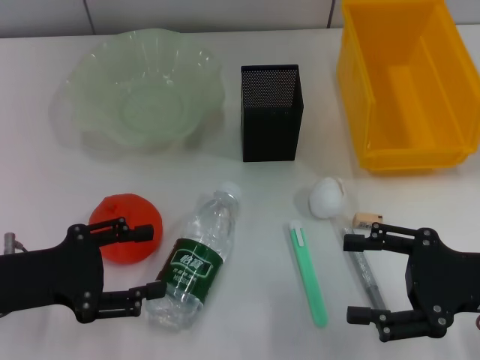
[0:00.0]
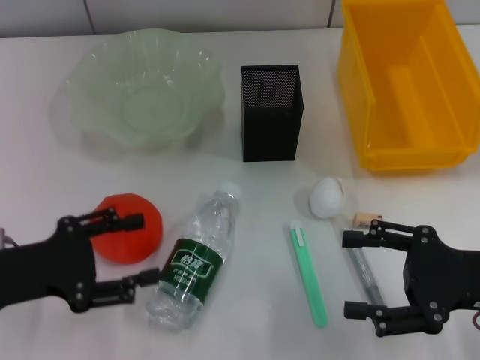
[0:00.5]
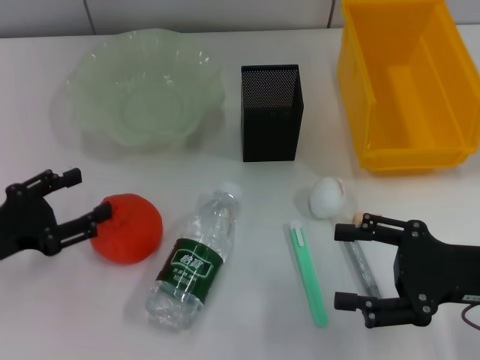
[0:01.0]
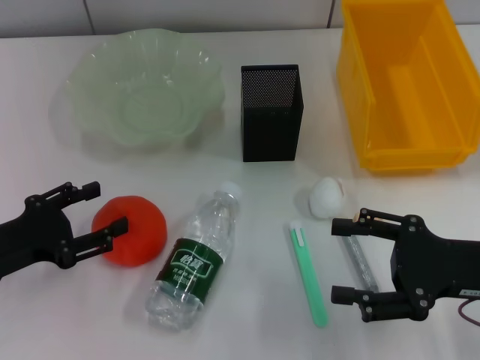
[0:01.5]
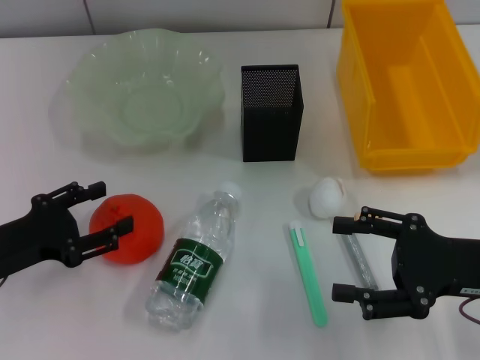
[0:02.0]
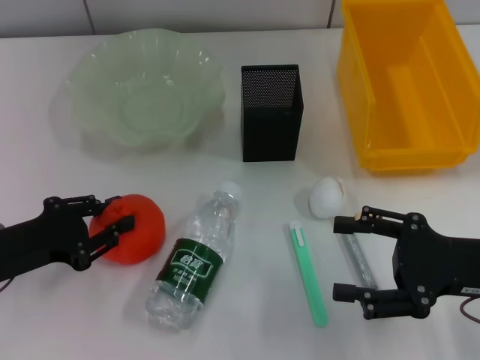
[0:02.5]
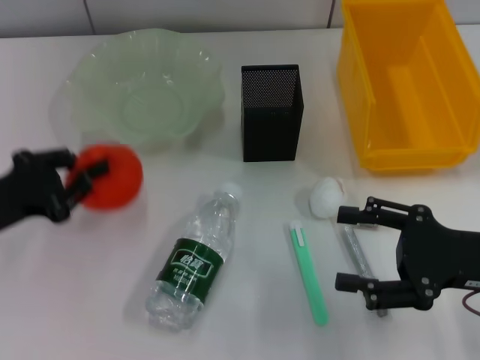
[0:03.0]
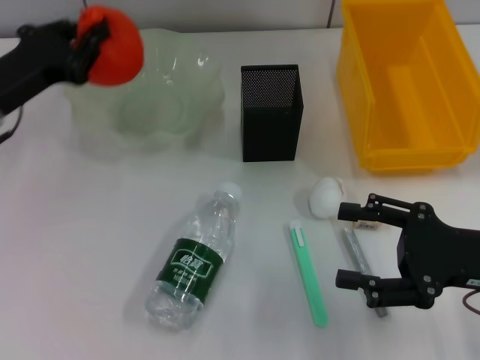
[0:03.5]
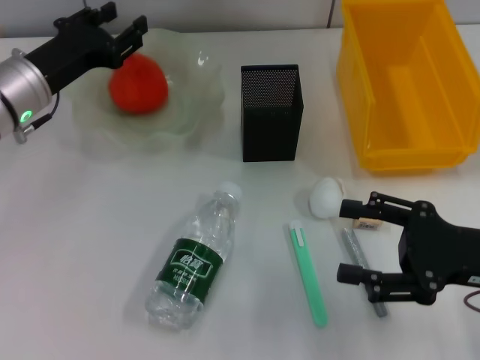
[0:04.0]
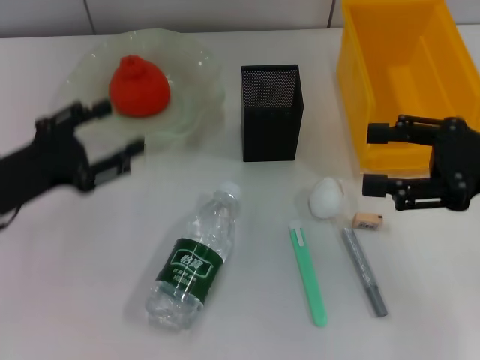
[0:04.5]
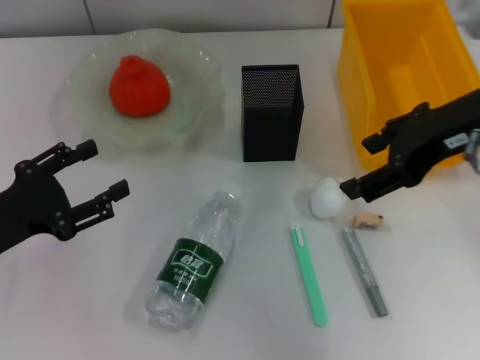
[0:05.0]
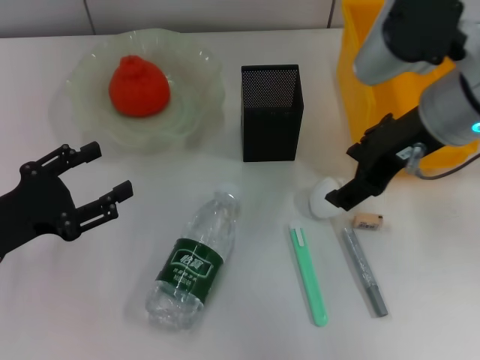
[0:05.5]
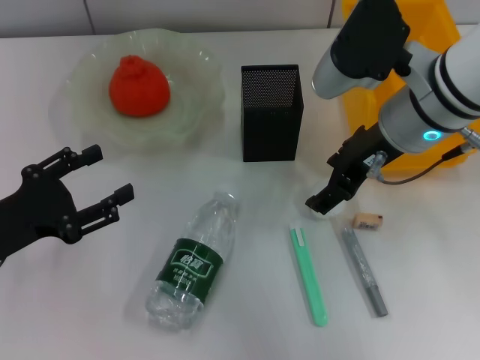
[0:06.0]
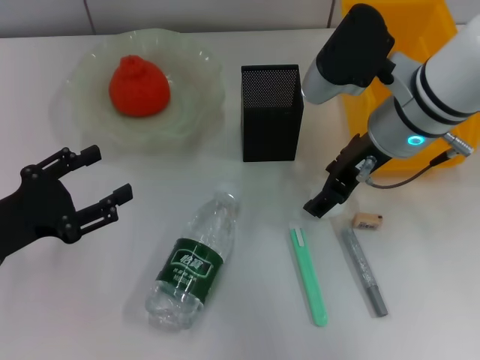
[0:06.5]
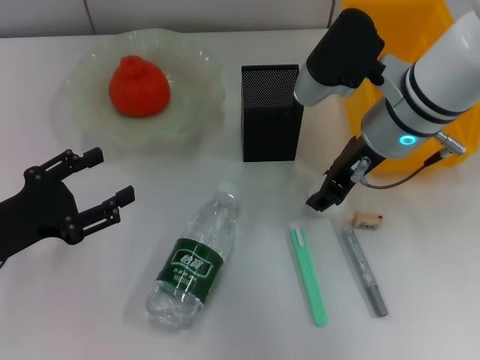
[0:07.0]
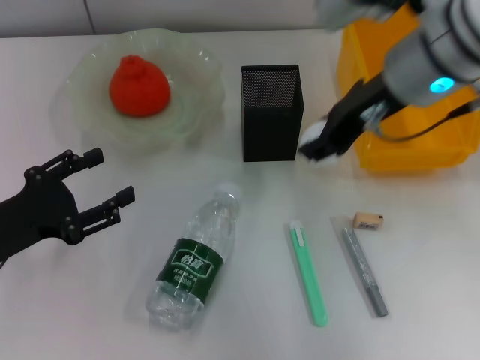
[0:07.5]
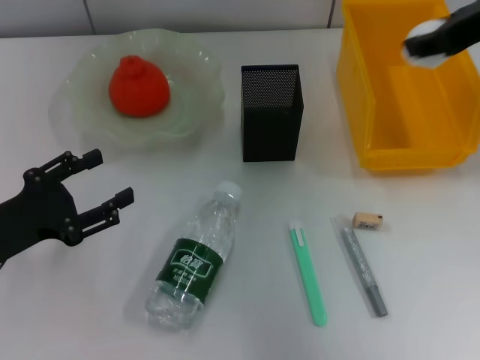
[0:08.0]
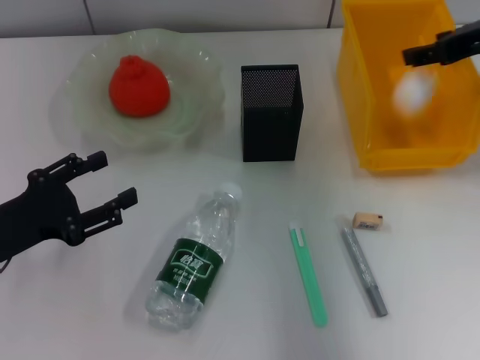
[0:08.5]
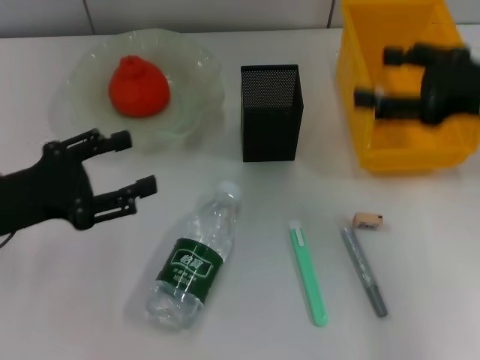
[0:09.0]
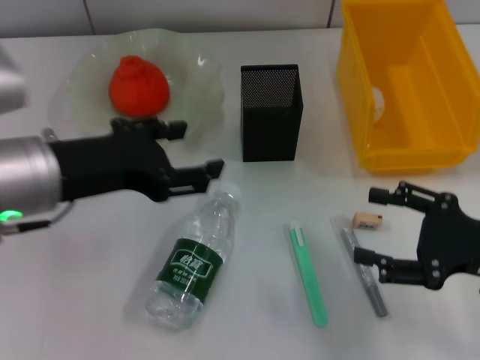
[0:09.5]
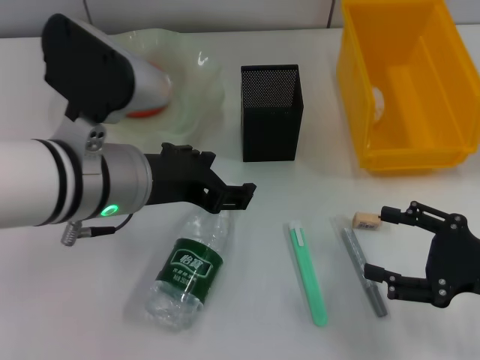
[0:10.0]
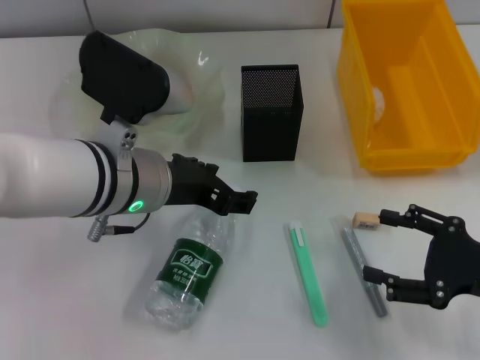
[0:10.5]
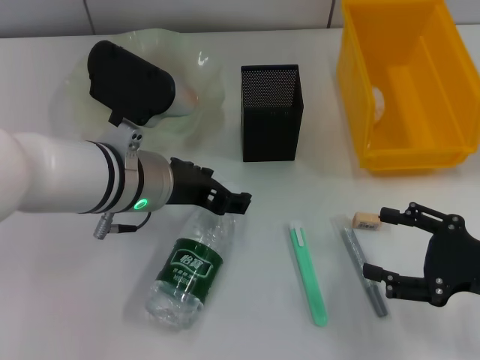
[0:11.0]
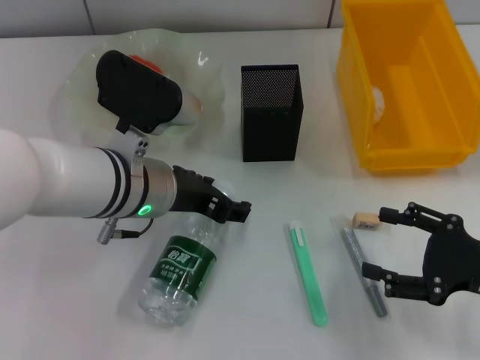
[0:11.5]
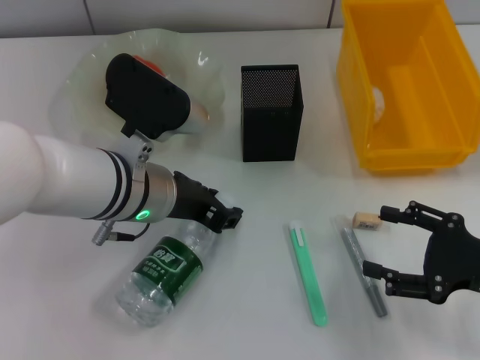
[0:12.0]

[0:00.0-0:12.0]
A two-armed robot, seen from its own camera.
Step, 0:00.0 to 0:02.5: Grab the orange with the left hand.
Step, 0:03.0 to 0:04.0: Place the orange into the fruit bowl with the left hand.
Step, 0:04.5 to 0:07.0: Grab the paper ball with the right hand.
Step, 0:07.5 to 0:08.5: Place the paper ball into the trash can with the right hand.
Step, 0:09.0 to 0:11.5: Grab the water bottle with the left hand.
0:02.0 to 0:04.0: The left gripper is displaced forward by about 15 cm, and closes its fingers.
0:04.0 to 0:06.0: The right gripper shifts approximately 20 cm to the left, forward and upward, while the left gripper travels backward by about 15 cm, and opens its fingers.
0:06.0 to 0:08.0: The right gripper goes roughly 15 cm upward and to the right, and closes.
0:08.0 to 0:10.0: The right gripper travels downward and backward by roughly 25 cm, and opens. Meanwhile the left gripper heads to the right and upward, covering roughly 20 cm.
0:10.0 to 0:12.0: The left gripper travels downward by about 5 cm, and closes.

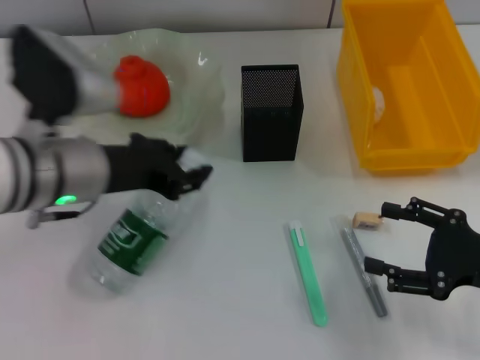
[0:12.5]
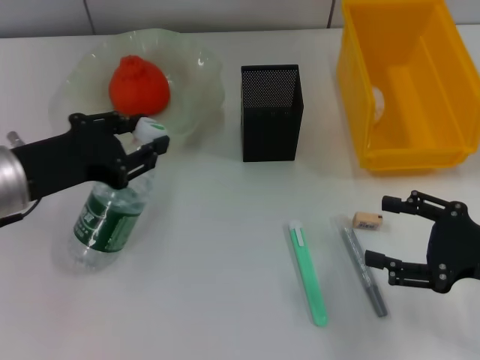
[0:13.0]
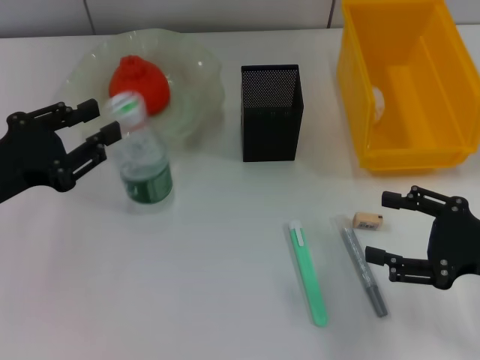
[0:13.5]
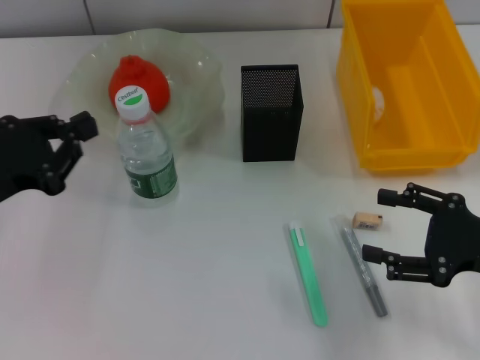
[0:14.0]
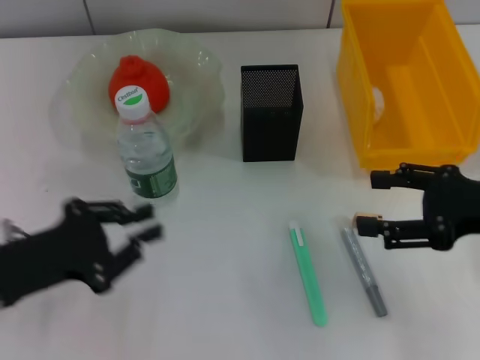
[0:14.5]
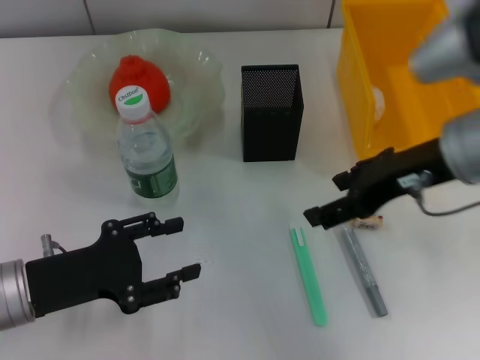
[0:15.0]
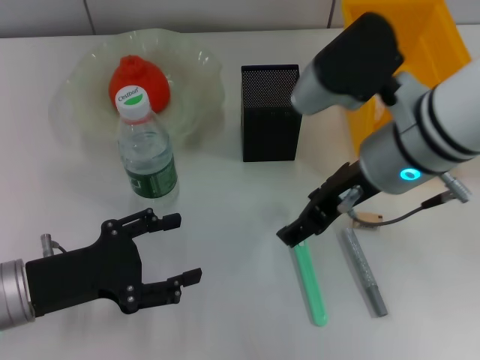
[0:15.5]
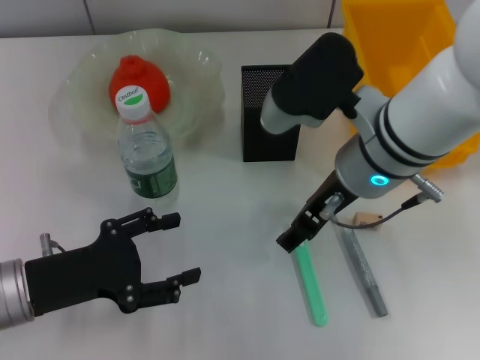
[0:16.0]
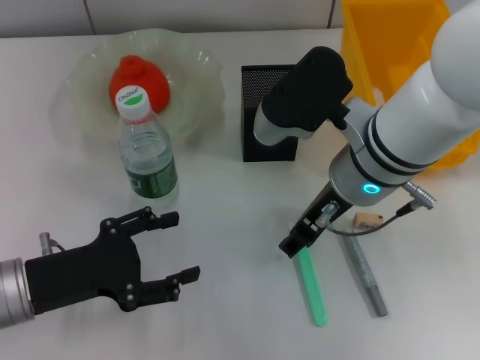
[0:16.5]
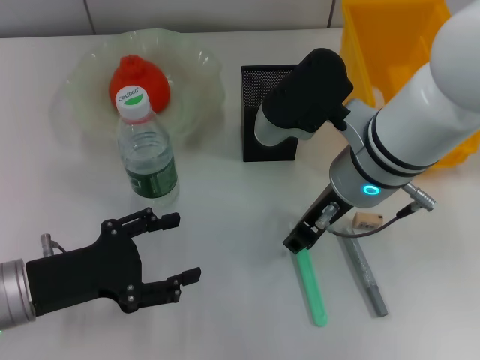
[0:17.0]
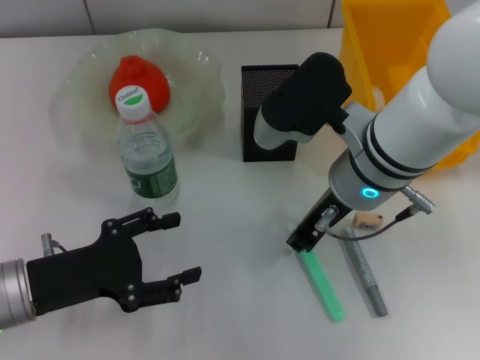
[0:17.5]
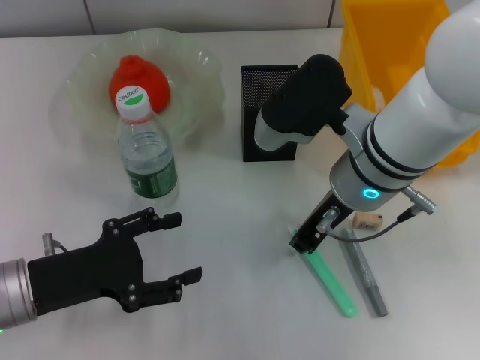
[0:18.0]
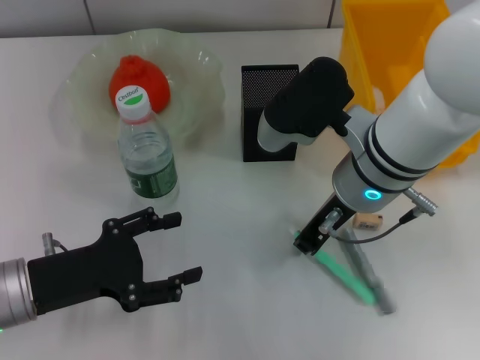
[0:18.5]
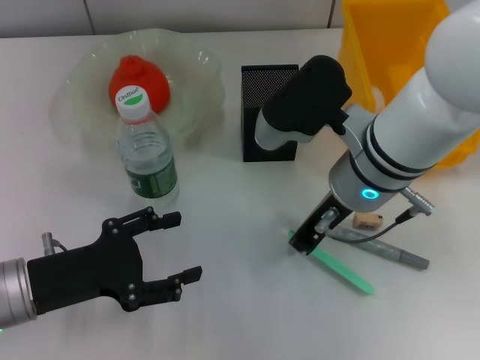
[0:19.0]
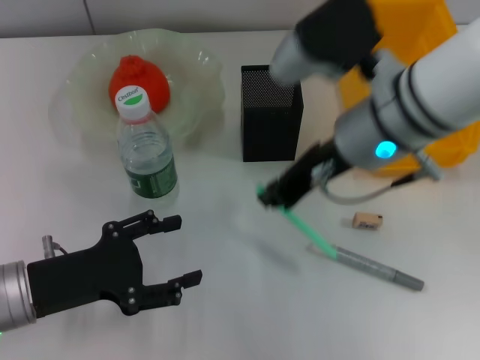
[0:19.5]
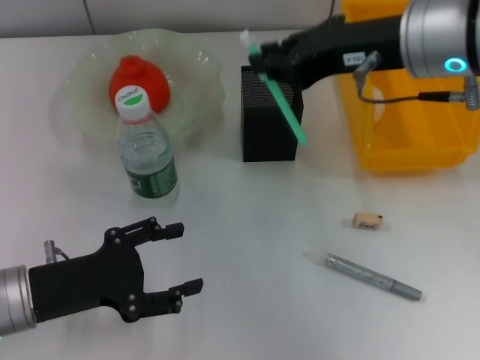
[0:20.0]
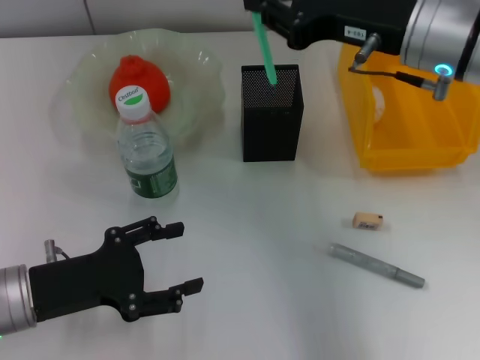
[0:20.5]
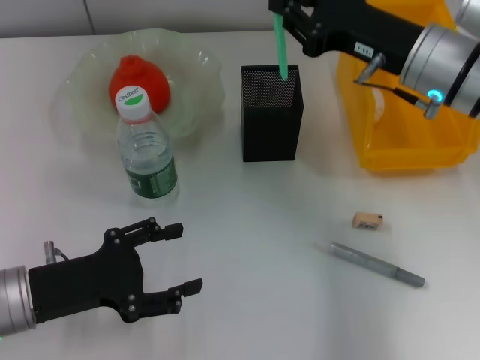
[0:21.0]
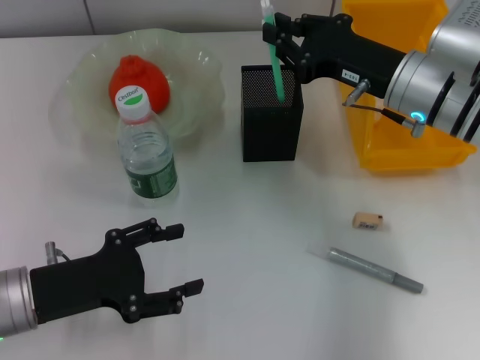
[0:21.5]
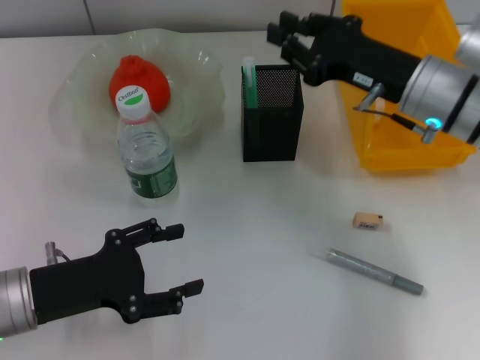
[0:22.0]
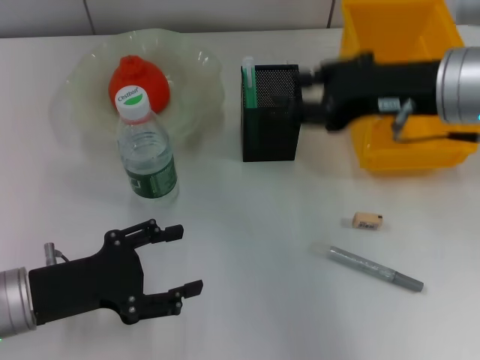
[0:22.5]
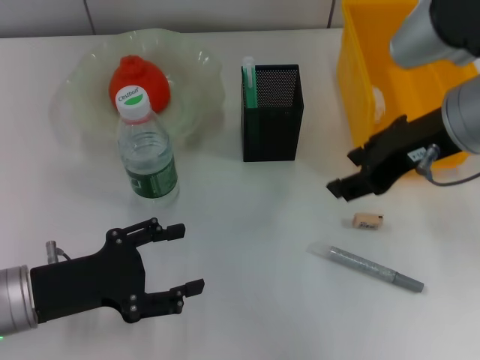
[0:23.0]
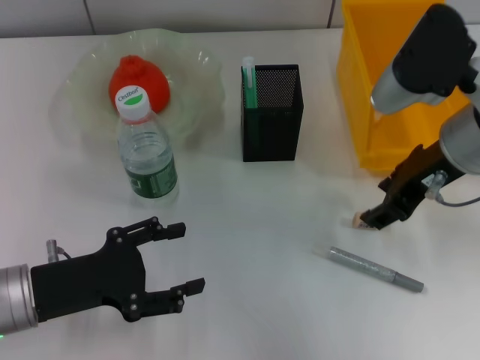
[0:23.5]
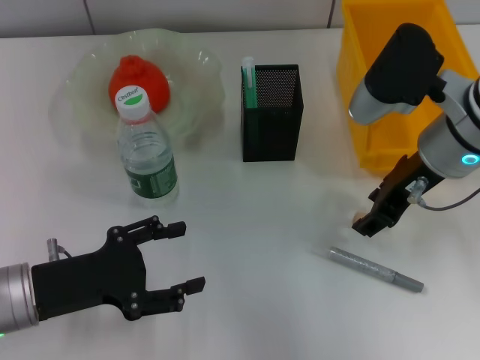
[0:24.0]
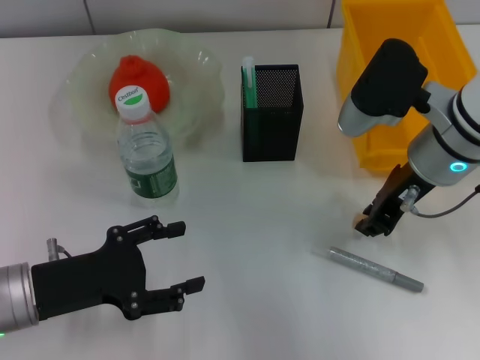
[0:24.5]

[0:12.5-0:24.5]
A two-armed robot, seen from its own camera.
Step, 0:12.5 to 0:14.0: Place the water bottle on the table with the left hand.
Step, 0:14.5 to 0:17.0: Grab the blue utility knife with the right hand.
Step, 0:17.5 to 0:21.5: Place the blue utility knife into the pen holder with the right hand.
0:12.5 to 0:14.5: The right gripper travels upward by approximately 5 cm; the left gripper travels to the left, backward and downward by some 15 cm, and closes up.
0:14.5 to 0:16.5: The right gripper goes about 20 cm to the left, while the left gripper opens its fingers.
0:16.5 to 0:18.5: The right gripper closes its fingers.
0:18.5 to 0:20.5: The right gripper heads to the right and upward, covering about 10 cm.
0:20.5 to 0:22.5: The right gripper moves some 10 cm downward and comes back, and opens up.
0:22.5 to 0:24.5: The right gripper shifts about 5 cm downward.

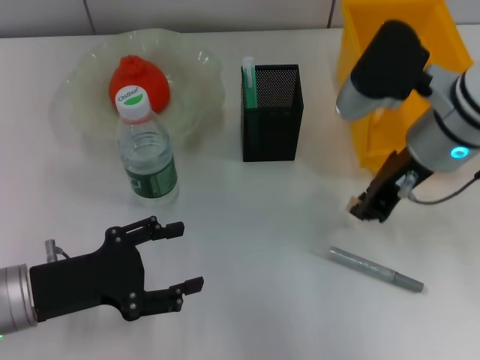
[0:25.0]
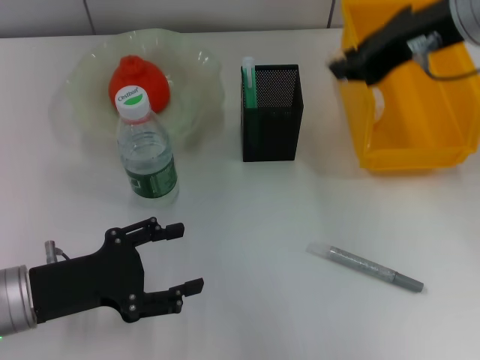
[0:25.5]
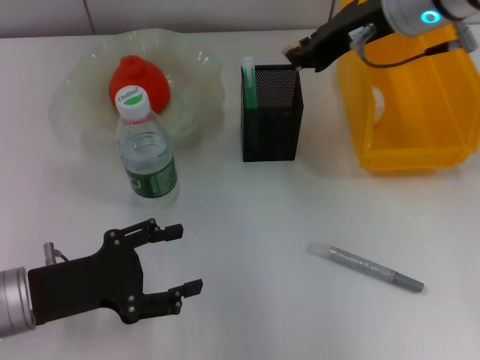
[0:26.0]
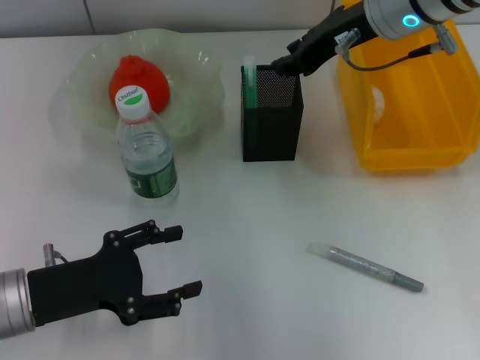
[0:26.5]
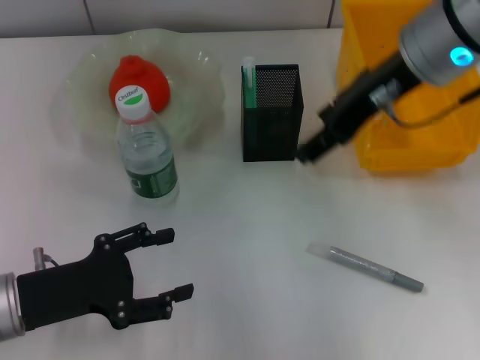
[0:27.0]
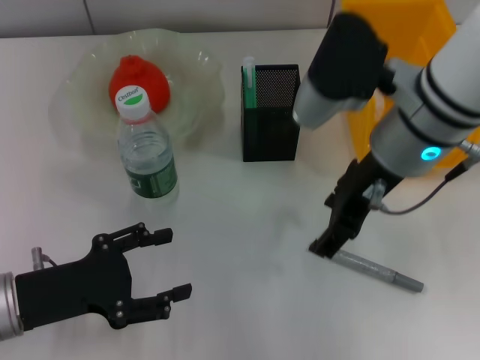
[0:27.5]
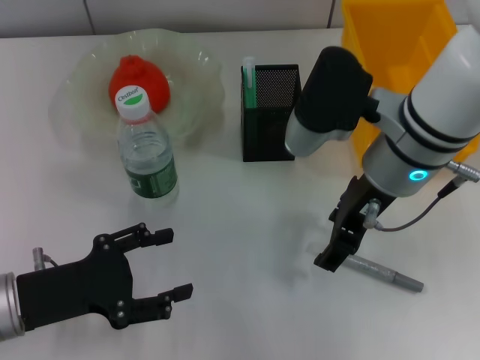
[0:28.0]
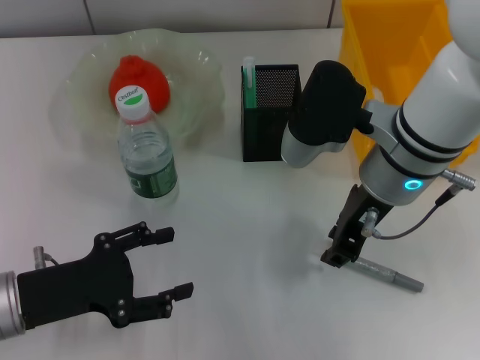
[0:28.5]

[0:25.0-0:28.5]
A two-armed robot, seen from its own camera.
Step, 0:25.5 to 0:26.5: Put the eraser into the pen holder with the right hand.
0:25.0 to 0:27.0: The right gripper shifts some 5 cm upward, and opens its fingers.
0:27.0 to 0:28.5: The right gripper moves downward, some 10 cm.
